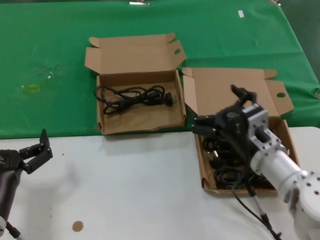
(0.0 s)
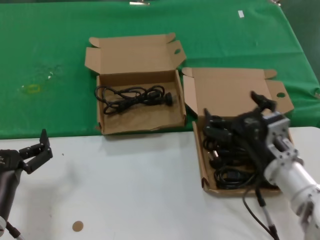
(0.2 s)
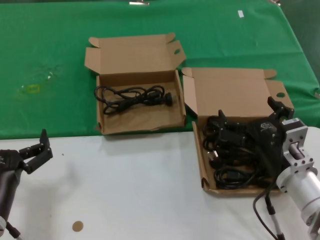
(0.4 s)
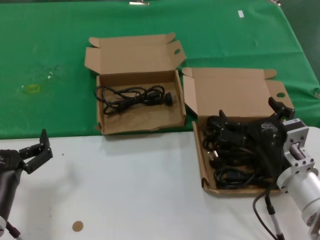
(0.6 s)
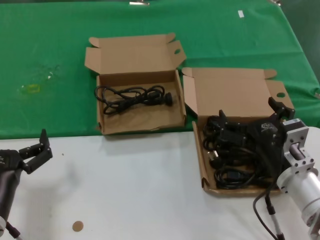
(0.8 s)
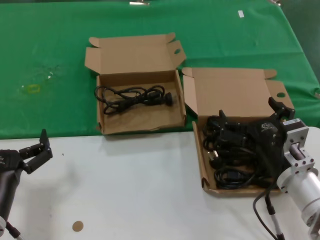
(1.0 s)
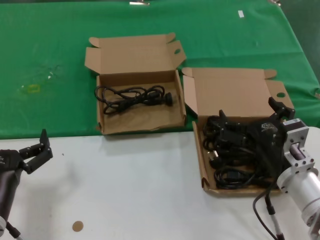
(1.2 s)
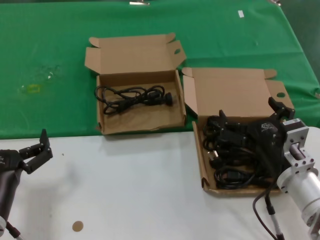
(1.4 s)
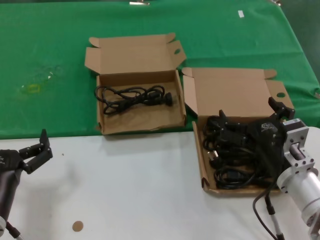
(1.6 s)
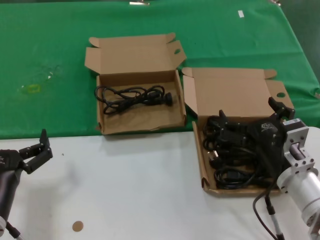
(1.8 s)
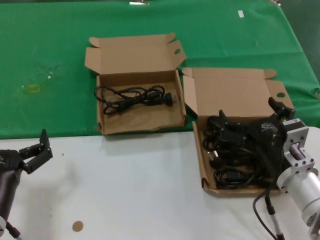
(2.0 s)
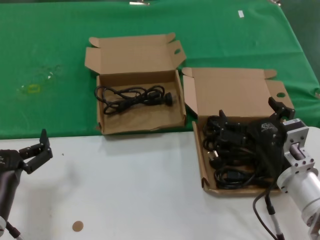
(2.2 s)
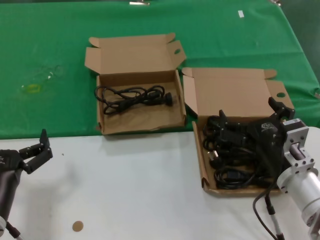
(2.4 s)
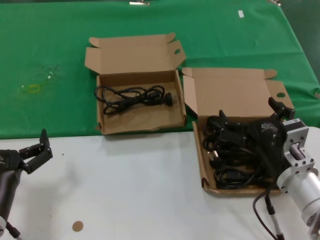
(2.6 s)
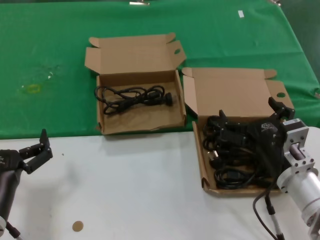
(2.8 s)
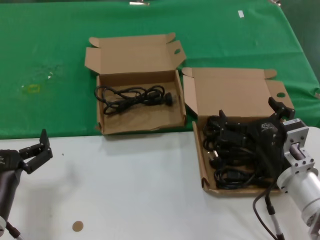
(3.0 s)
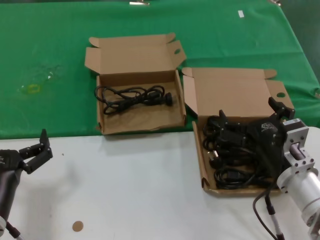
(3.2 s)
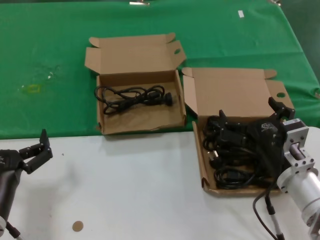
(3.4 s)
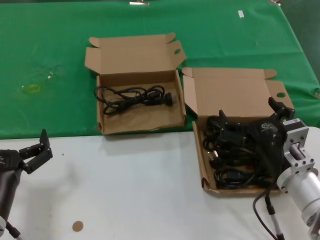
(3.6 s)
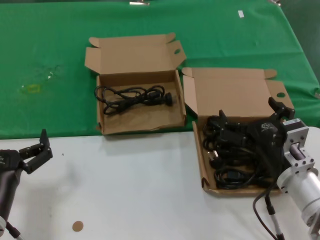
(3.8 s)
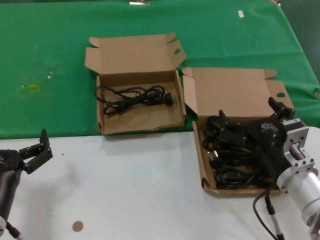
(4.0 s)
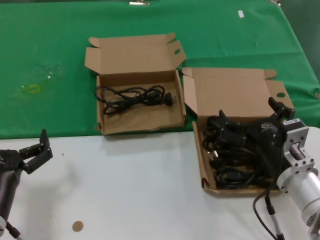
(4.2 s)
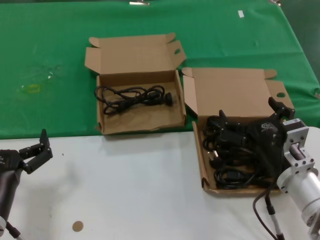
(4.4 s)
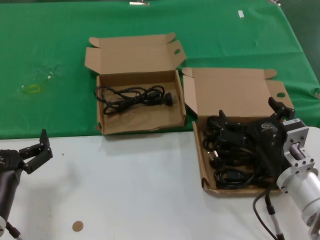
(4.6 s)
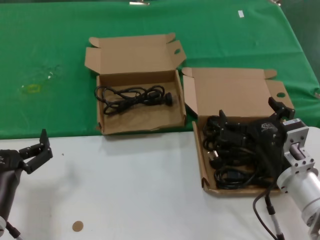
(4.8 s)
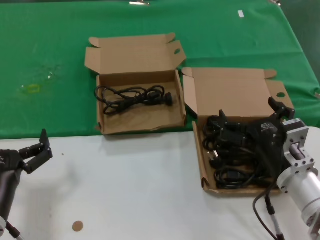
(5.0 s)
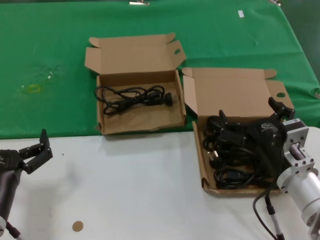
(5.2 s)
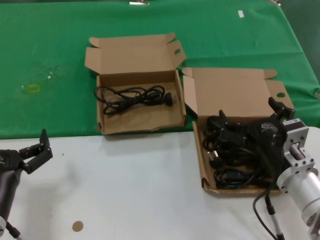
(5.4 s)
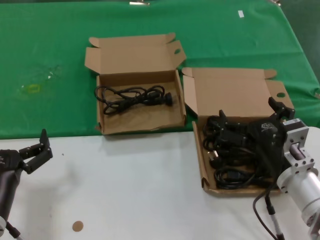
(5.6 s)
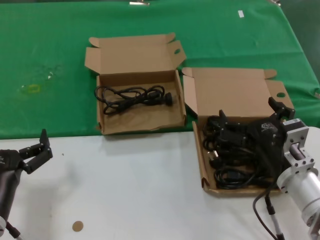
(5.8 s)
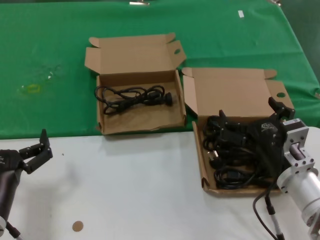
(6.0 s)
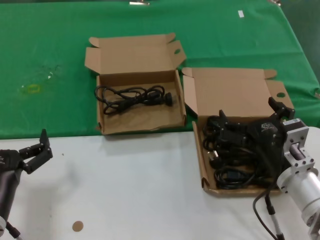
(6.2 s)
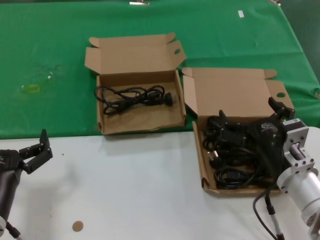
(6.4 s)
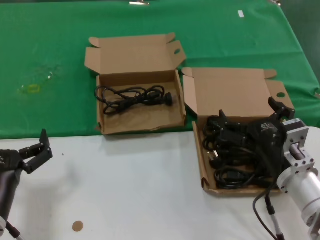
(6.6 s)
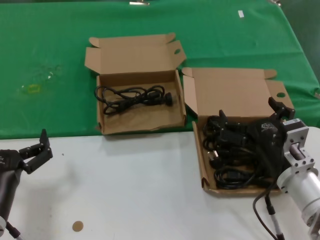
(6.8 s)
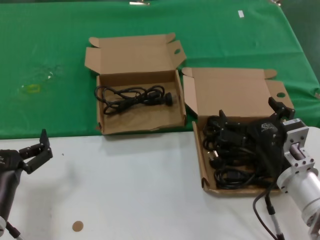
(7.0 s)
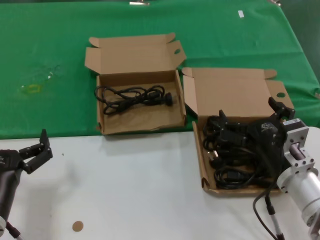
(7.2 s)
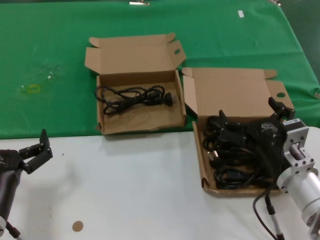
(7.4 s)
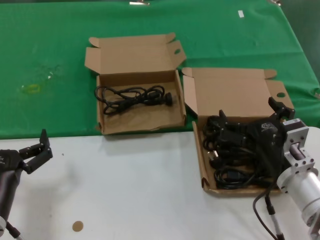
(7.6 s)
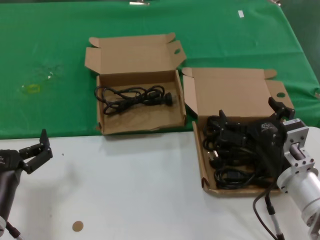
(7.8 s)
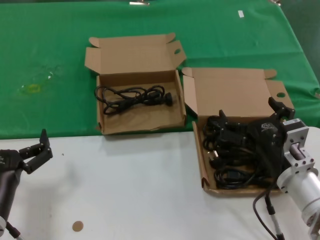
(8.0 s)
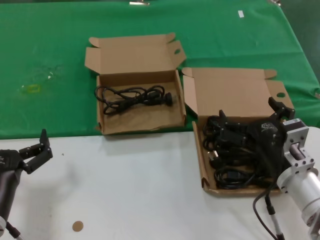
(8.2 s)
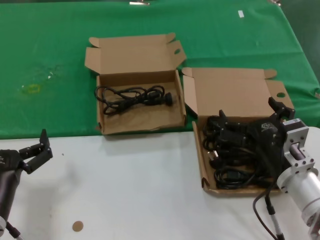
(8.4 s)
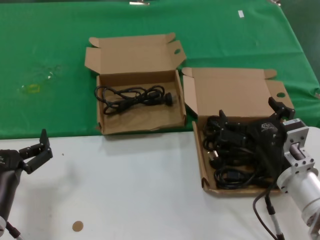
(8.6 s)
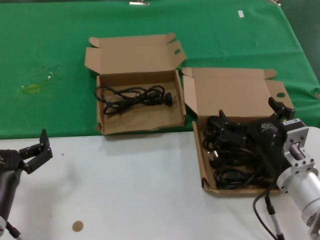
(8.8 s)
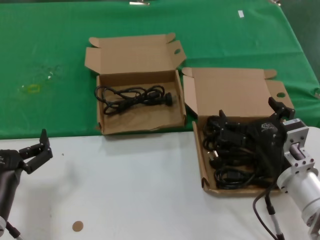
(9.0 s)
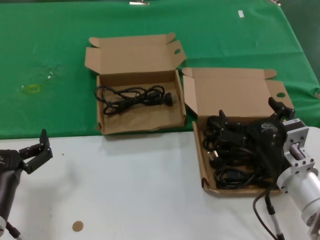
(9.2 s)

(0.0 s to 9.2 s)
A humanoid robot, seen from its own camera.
Task of the whole recording: take the parts from the box containing them and put them into an empty box.
0.0 s - 1.6 s: The right hand heads backward, covering approximately 5 cm.
1.6 s - 9.2 s: The two hands keep their place.
